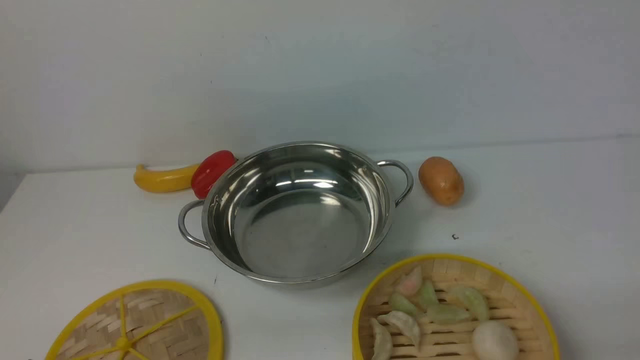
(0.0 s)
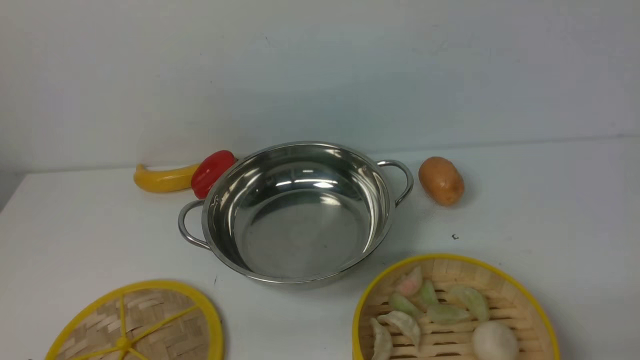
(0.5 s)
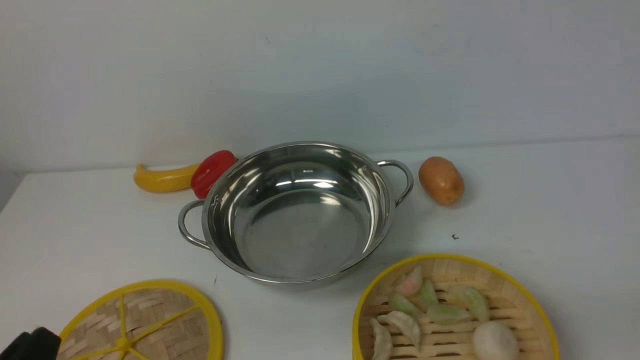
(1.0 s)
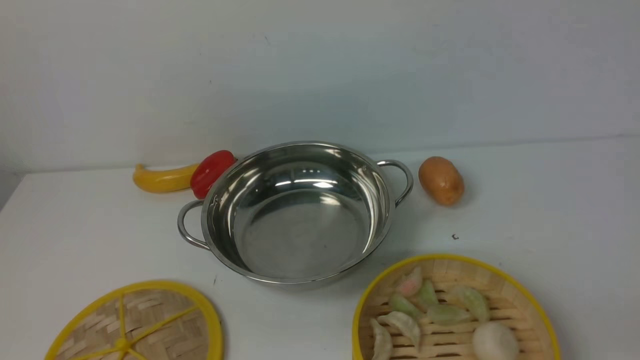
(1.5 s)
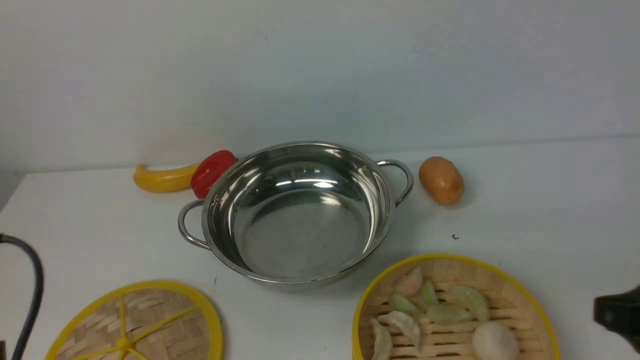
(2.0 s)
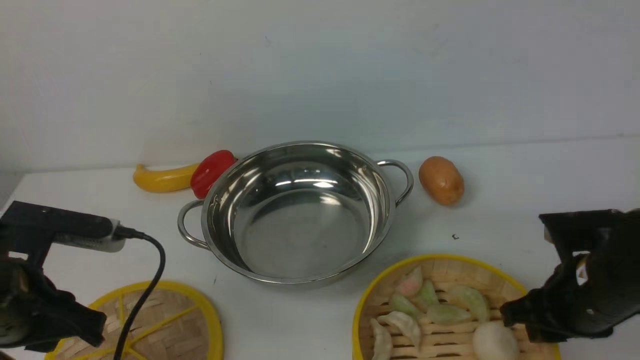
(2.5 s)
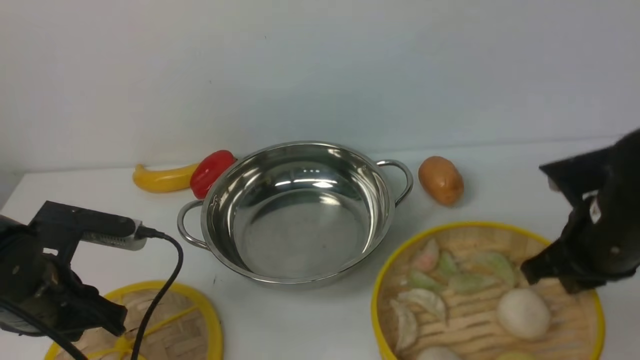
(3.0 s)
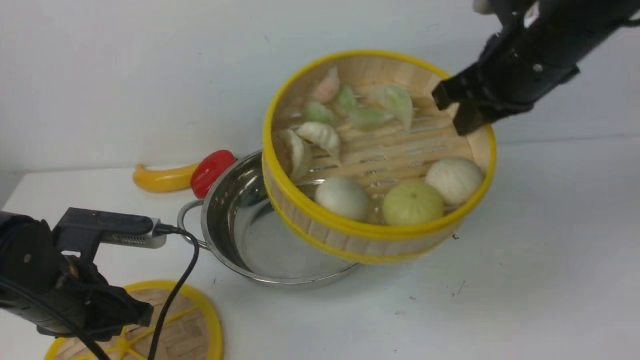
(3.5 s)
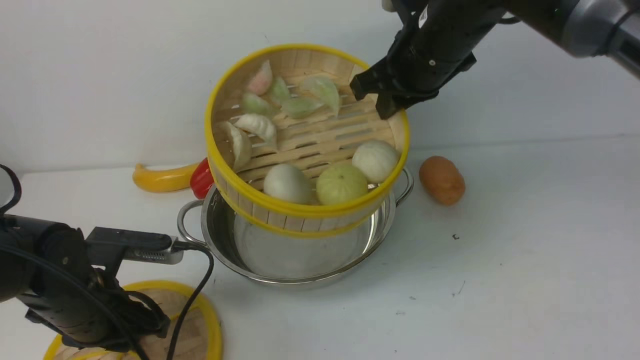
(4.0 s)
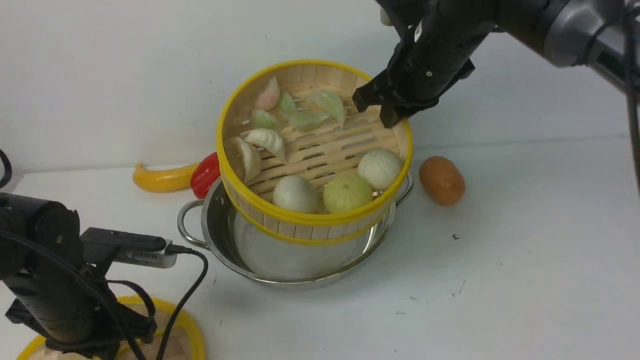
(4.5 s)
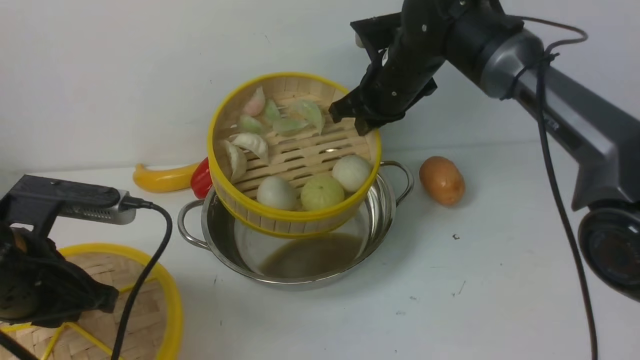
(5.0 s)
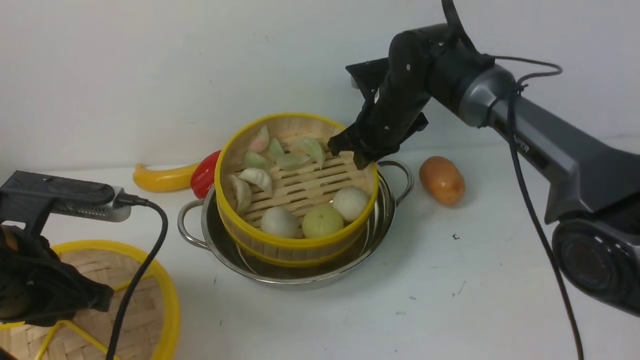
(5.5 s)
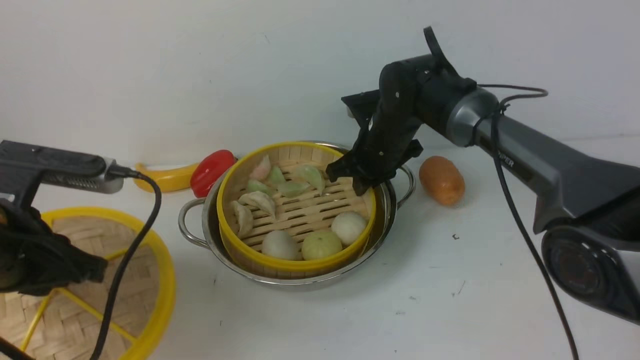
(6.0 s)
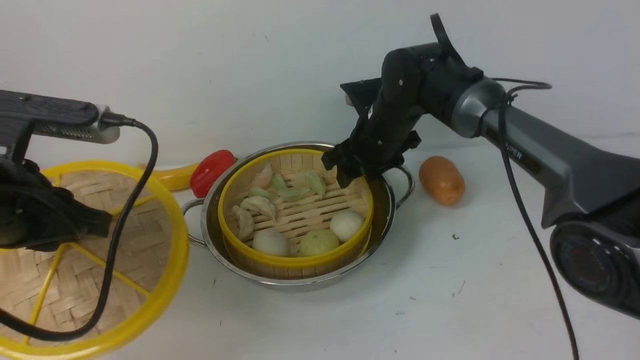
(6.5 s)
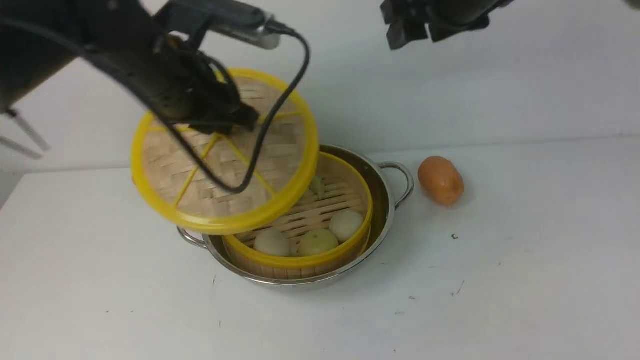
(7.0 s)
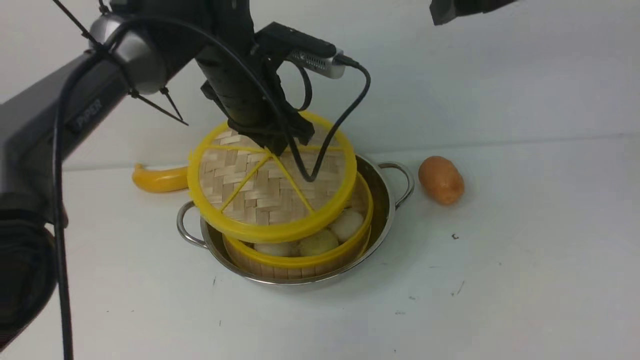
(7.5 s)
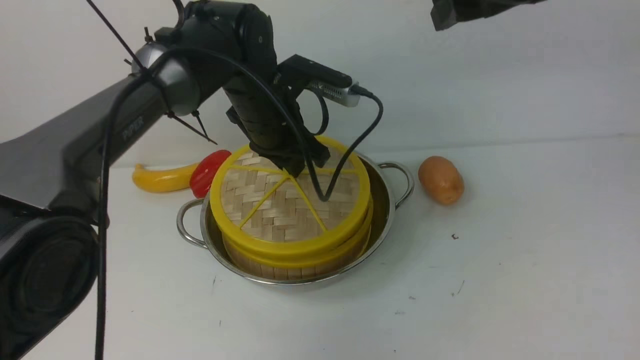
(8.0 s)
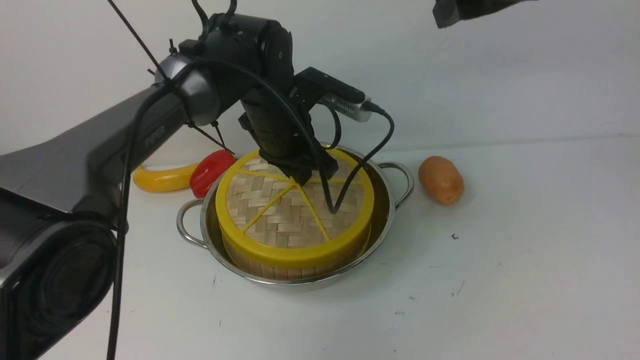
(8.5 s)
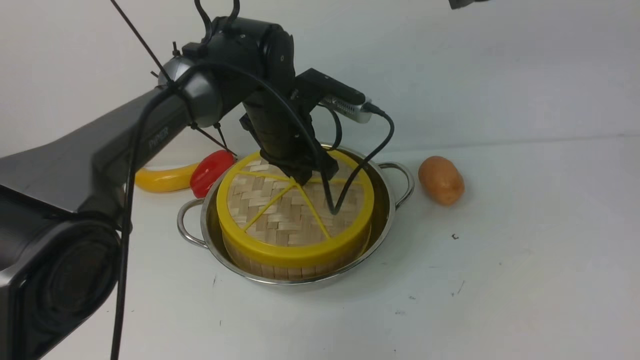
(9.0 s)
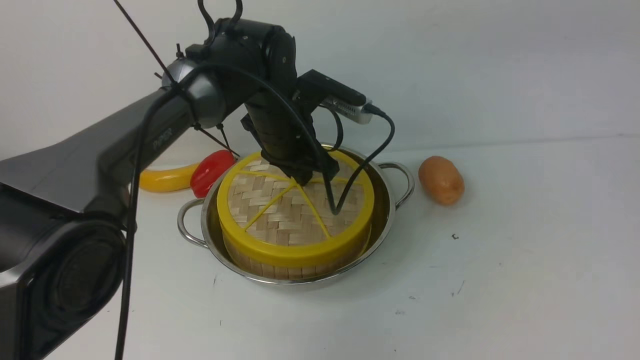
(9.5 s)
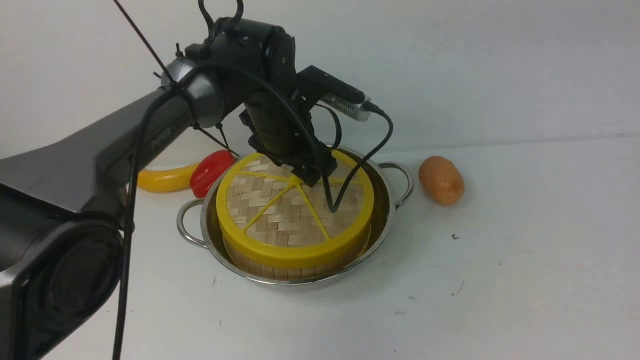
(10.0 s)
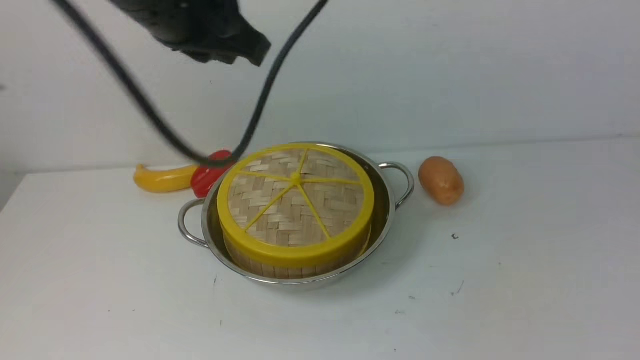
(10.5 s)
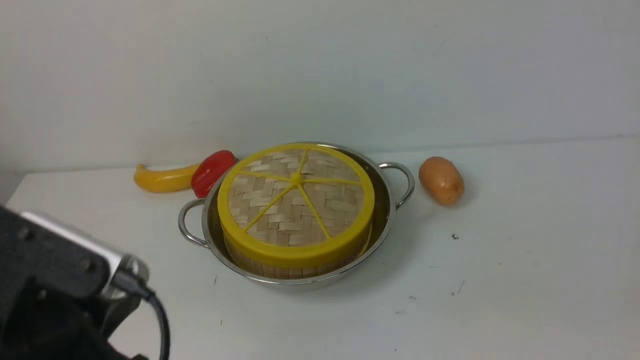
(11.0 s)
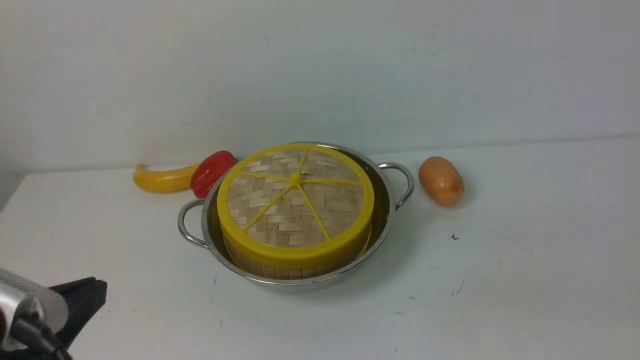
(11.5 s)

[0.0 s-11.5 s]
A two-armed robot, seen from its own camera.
Task of the whole recording: place the steamer in the pot on the white table, and put the lid on the steamer.
Step, 0.0 to 3.0 s: use the right arm to lift the steamer closest to it.
Step, 3.5 to 6.5 s: use the right arm to put the steamer into the iron steamer pot in the middle.
Step, 7.5 to 10.0 s: use the left arm to place the steamer lid on the steamer.
2.0 to 4.0 s: The left gripper shifts some 20 cm forward and downward, while the right gripper is displaced forward and to the left by some 35 cm, and closes up.
4.0 to 6.0 s: The right gripper is displaced downward and forward by some 15 cm. Meanwhile the left gripper is displaced upward by roughly 10 cm.
6.0 to 7.5 s: The left gripper heads forward and to the right, covering approximately 25 cm; the right gripper travels upward and to the right by about 25 cm, and opens.
7.5 to 9.5 s: The left gripper travels downward by approximately 5 cm. Meanwhile the right gripper changes place by approximately 5 cm.
9.5 to 11.5 s: The left gripper heads backward and to the left, covering roughly 40 cm, and opens, then closes once more. Meanwhile the right gripper goes about 35 cm backward, downward and to the right, and closes up.

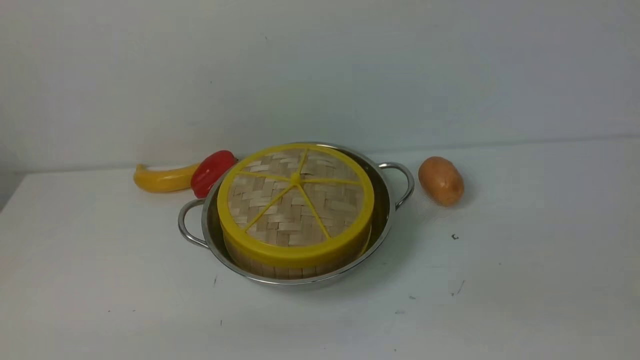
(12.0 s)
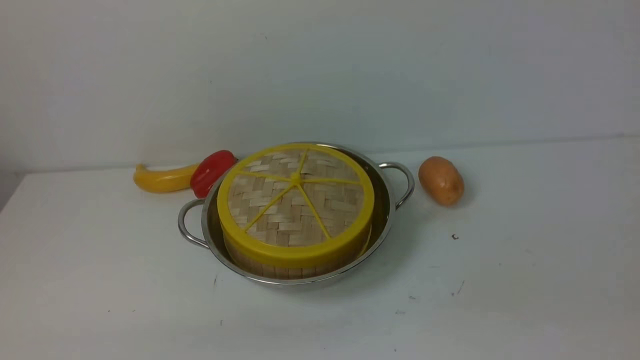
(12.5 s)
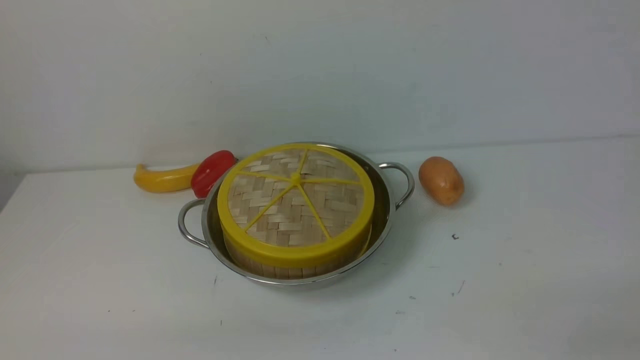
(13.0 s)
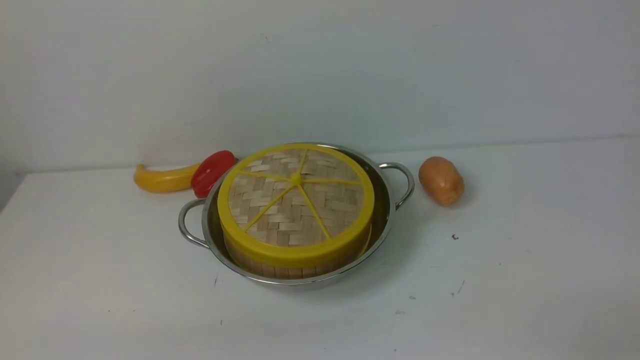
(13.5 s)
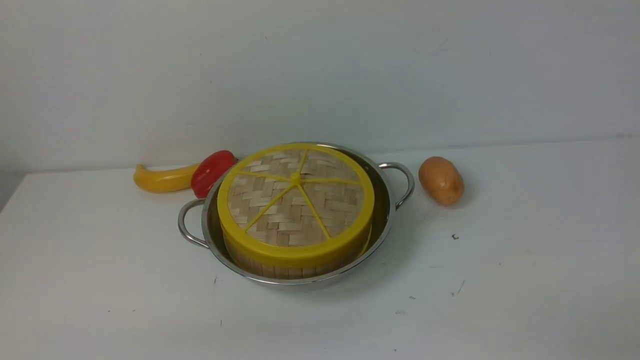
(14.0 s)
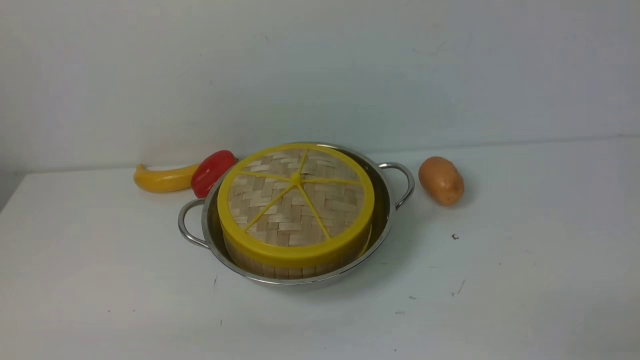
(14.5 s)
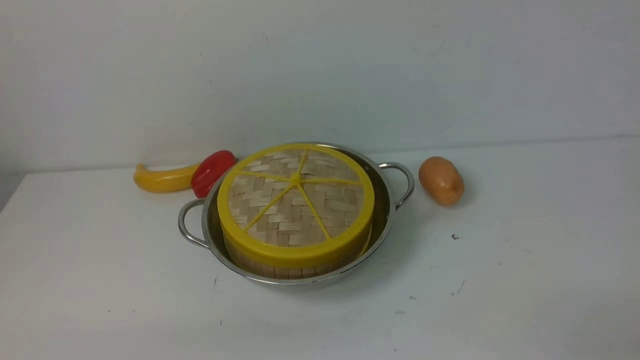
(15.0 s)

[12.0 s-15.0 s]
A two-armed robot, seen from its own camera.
Task of the whole recording: place the steamer in the pot on the white table, and put the lid on the steamer.
13.5 to 15.0 s: Neither gripper changes place.
